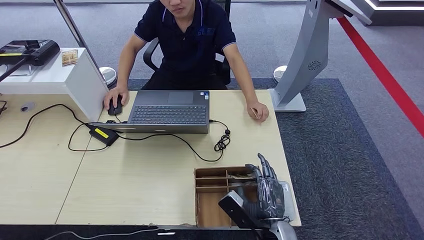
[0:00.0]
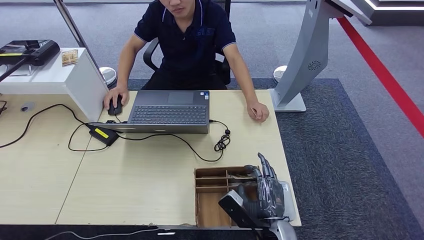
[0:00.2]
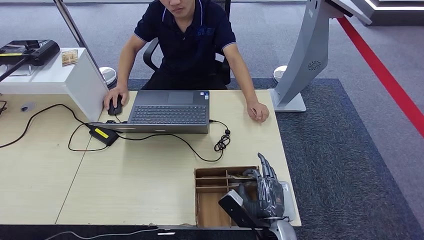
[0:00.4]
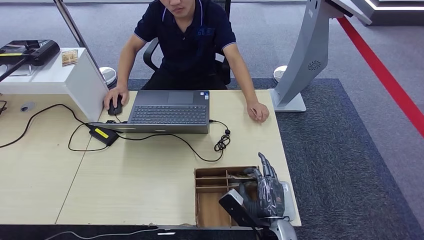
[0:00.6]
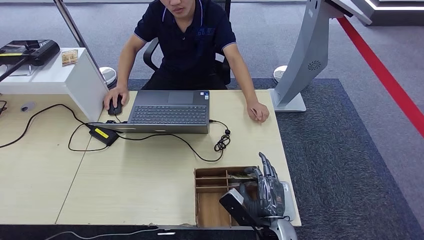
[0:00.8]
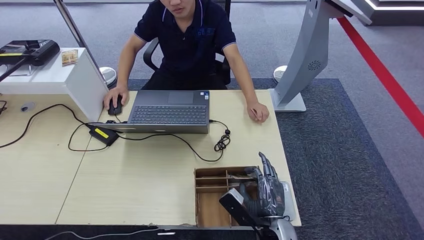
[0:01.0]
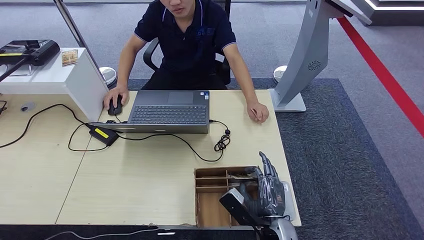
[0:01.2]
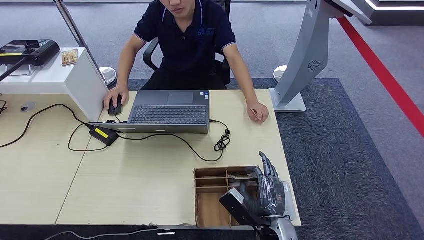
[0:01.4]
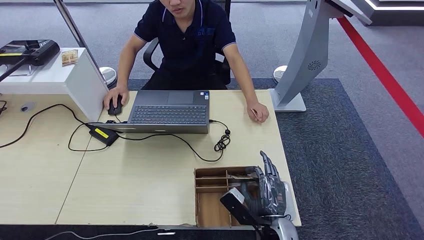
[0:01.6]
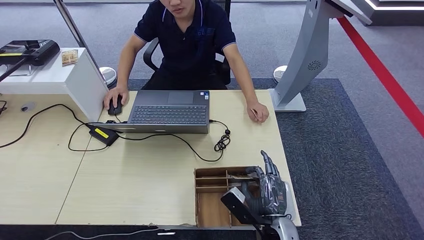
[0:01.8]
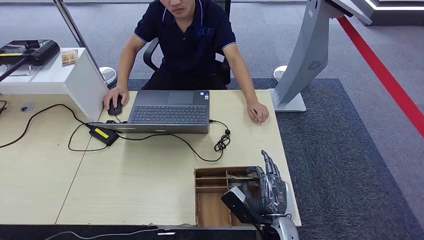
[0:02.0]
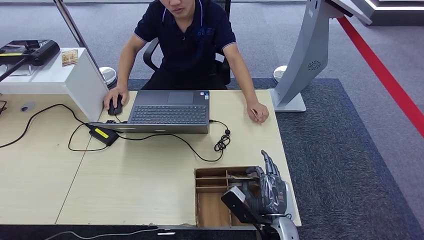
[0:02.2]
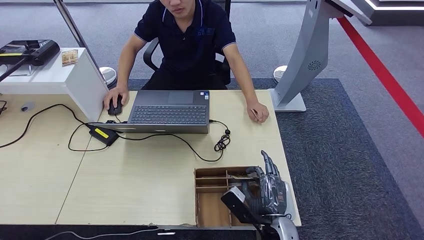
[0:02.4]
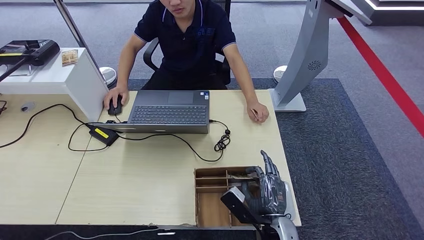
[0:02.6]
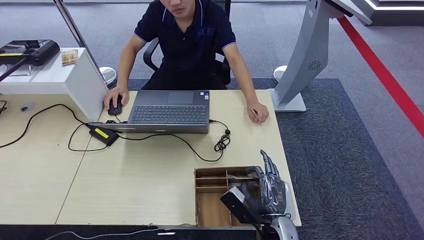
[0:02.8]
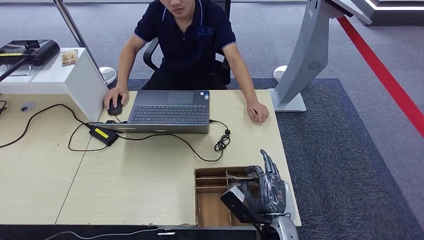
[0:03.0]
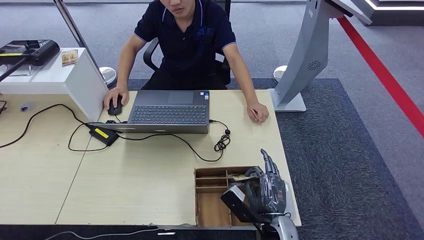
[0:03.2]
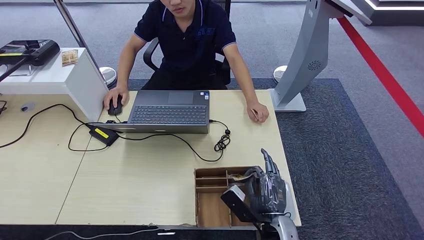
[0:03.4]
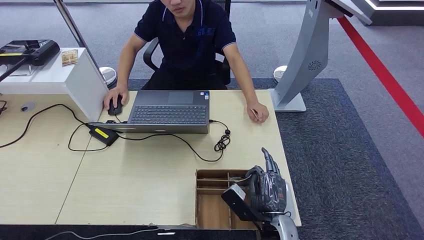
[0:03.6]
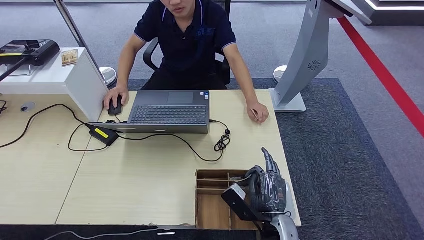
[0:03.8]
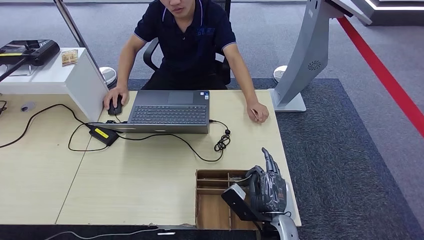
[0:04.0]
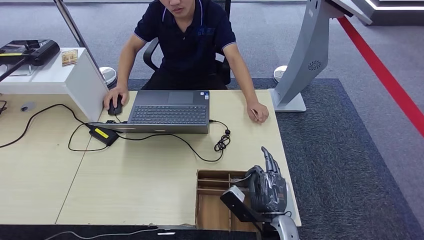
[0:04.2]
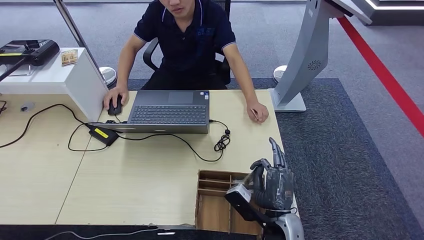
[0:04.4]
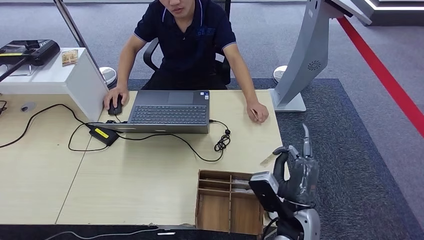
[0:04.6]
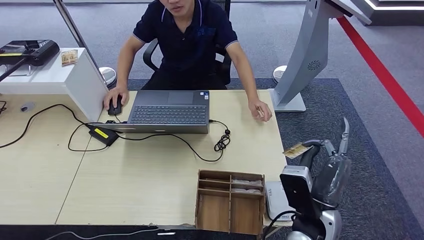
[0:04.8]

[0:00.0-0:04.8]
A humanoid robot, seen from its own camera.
Step, 0:00.0 to 0:04.8: Hand the room key to the person.
0:00.0 to 0:03.2: The two hands keep their place.
0:03.2 to 0:04.8: The right hand travels upward by about 10 cm.

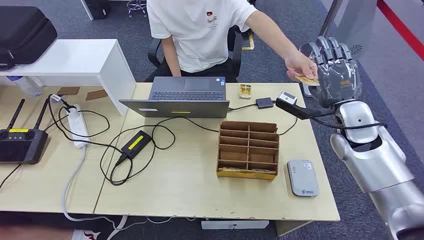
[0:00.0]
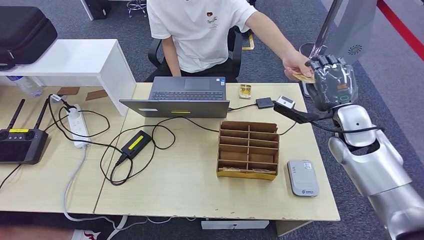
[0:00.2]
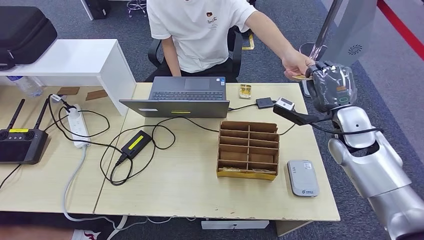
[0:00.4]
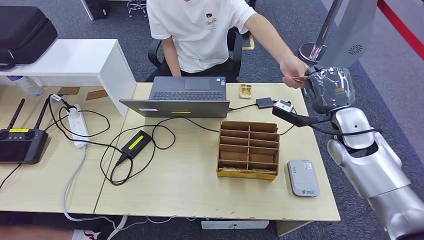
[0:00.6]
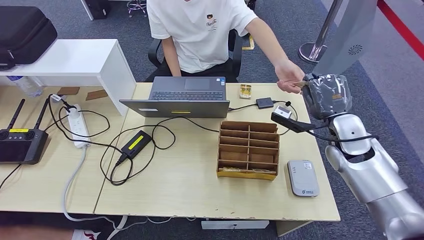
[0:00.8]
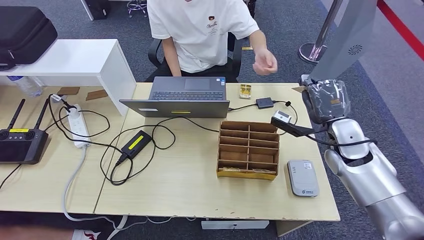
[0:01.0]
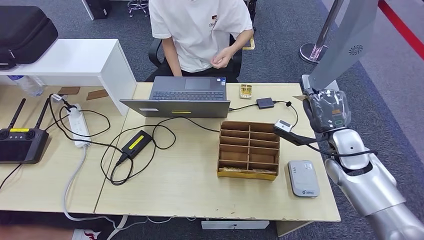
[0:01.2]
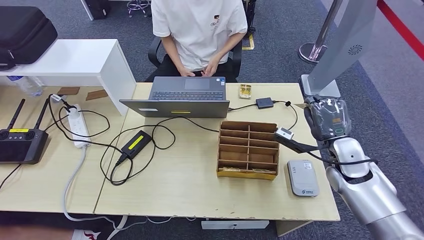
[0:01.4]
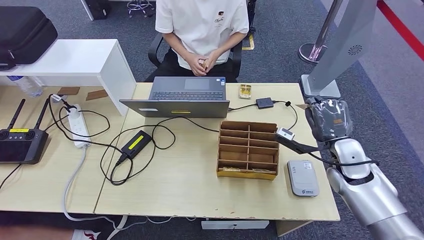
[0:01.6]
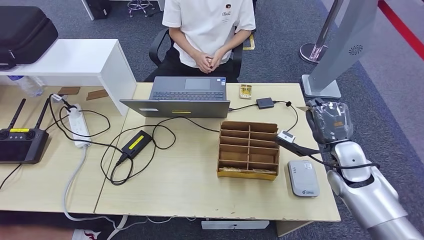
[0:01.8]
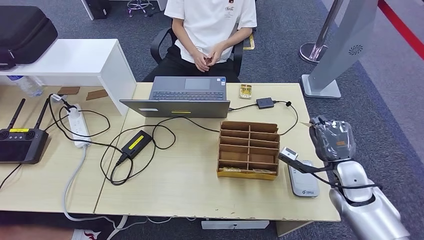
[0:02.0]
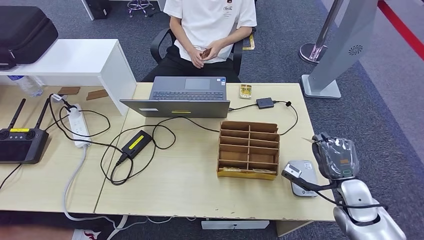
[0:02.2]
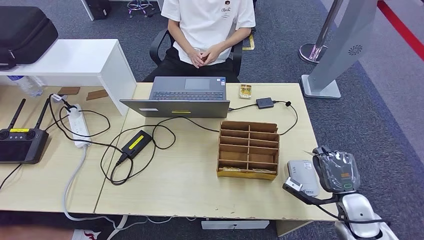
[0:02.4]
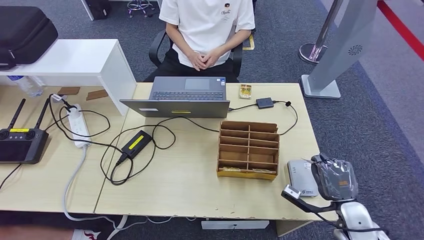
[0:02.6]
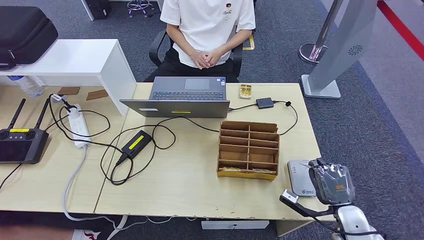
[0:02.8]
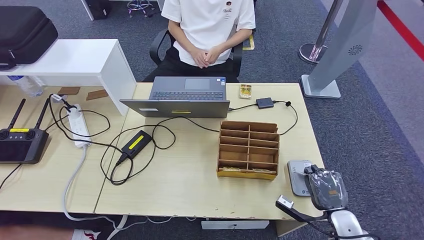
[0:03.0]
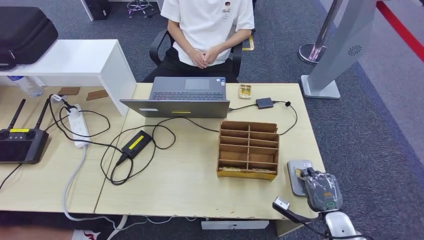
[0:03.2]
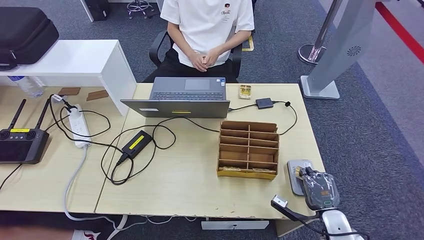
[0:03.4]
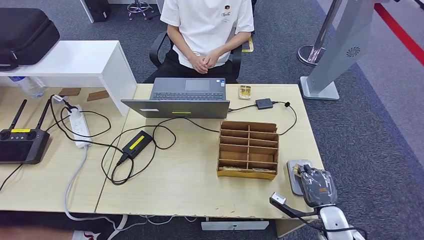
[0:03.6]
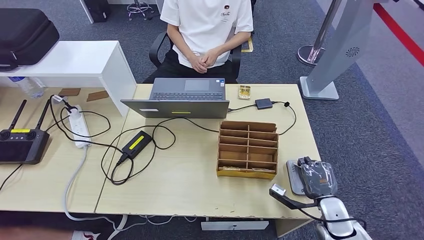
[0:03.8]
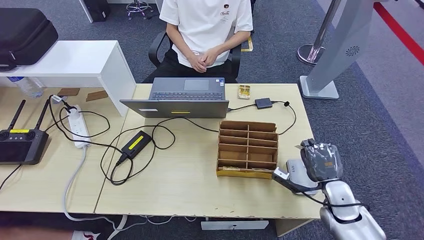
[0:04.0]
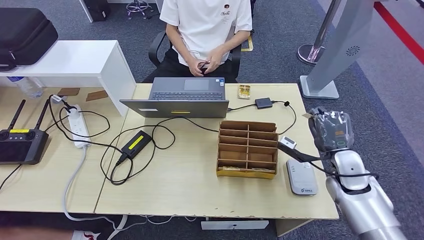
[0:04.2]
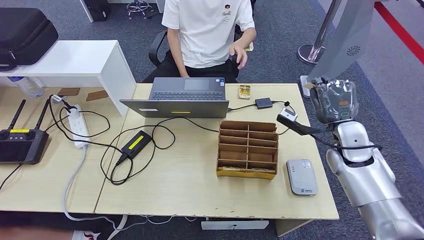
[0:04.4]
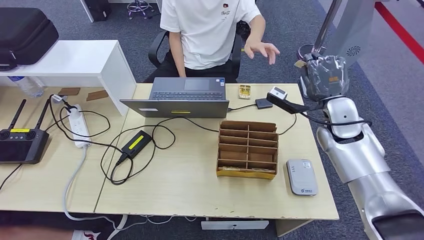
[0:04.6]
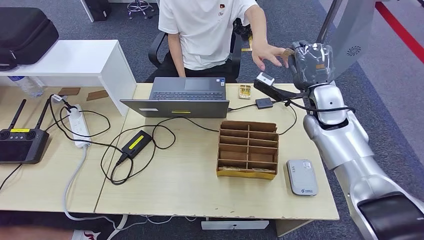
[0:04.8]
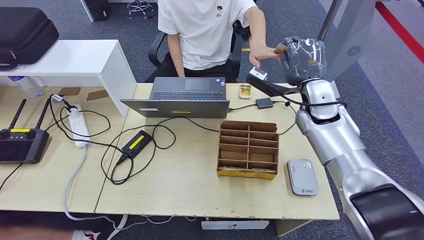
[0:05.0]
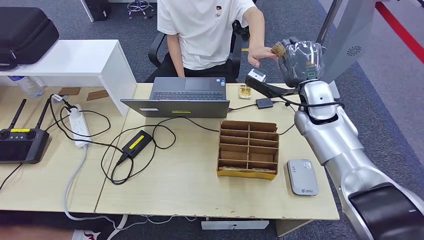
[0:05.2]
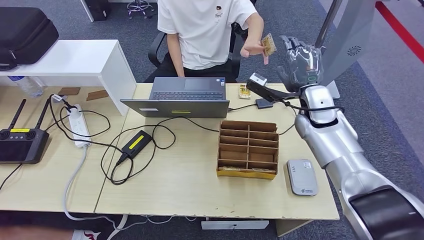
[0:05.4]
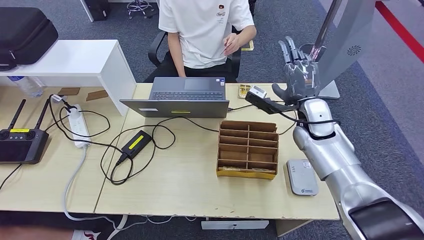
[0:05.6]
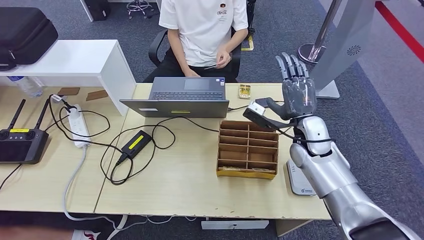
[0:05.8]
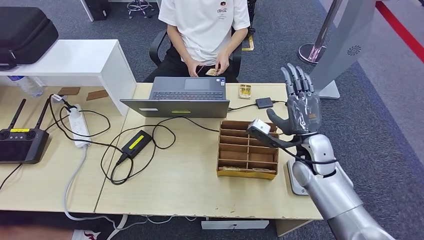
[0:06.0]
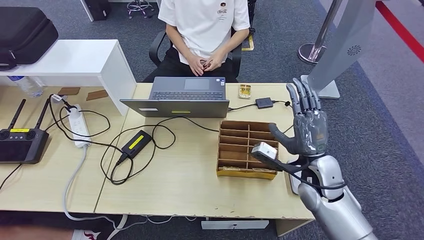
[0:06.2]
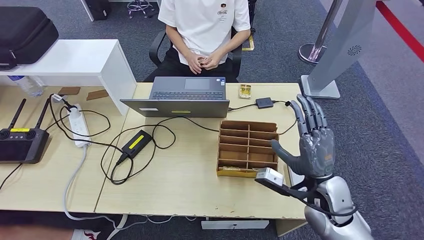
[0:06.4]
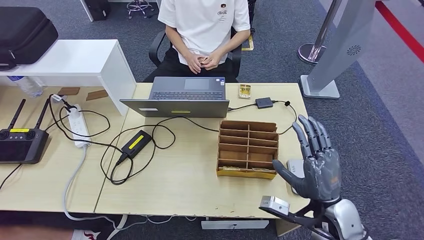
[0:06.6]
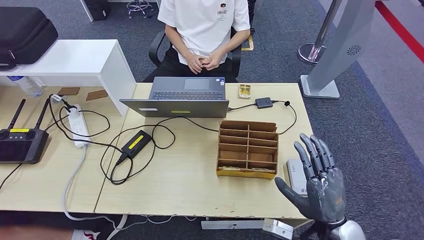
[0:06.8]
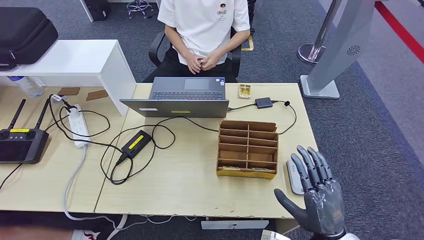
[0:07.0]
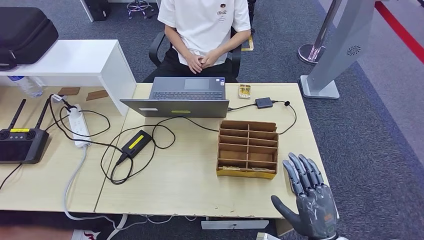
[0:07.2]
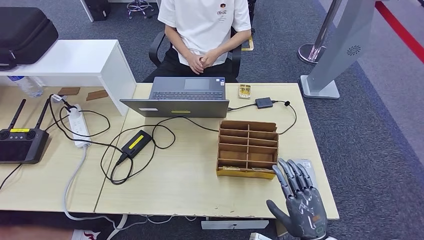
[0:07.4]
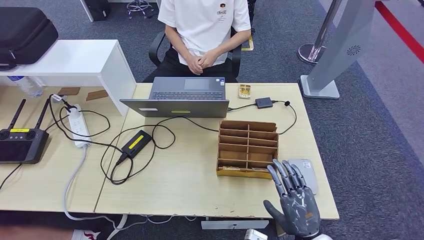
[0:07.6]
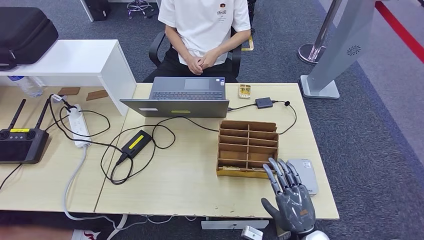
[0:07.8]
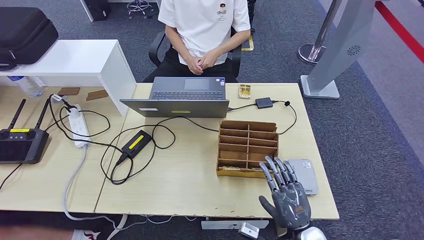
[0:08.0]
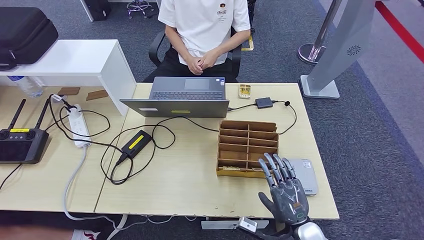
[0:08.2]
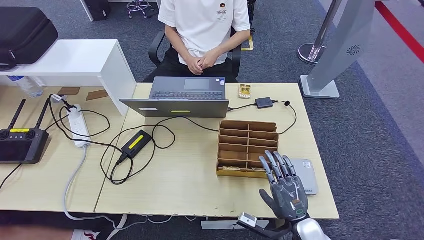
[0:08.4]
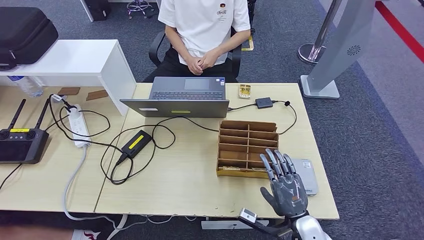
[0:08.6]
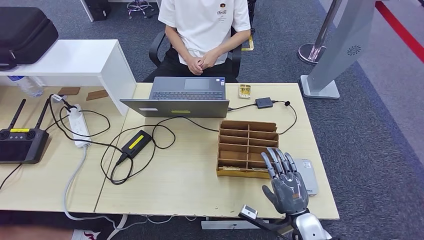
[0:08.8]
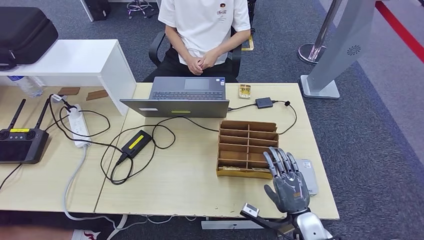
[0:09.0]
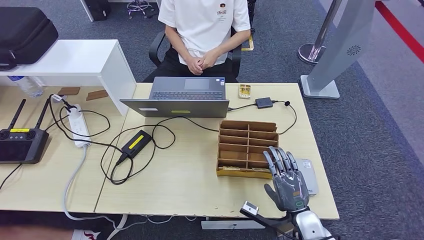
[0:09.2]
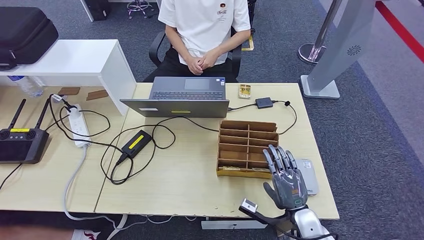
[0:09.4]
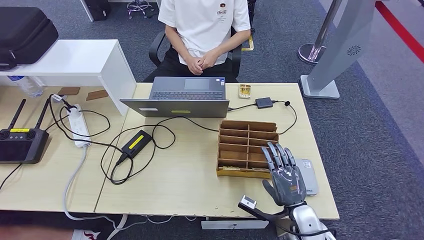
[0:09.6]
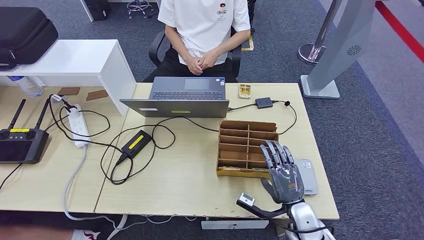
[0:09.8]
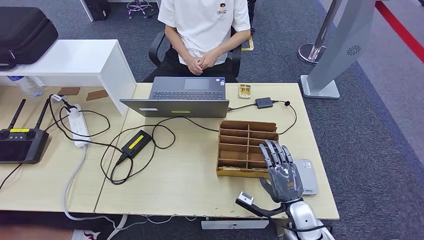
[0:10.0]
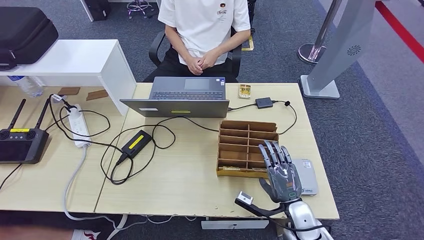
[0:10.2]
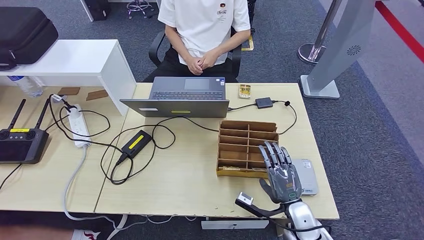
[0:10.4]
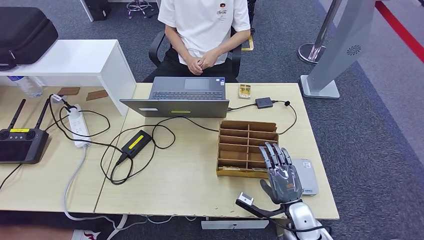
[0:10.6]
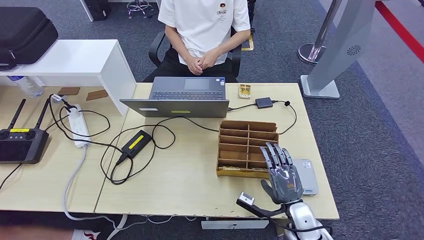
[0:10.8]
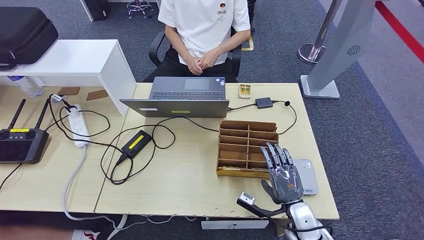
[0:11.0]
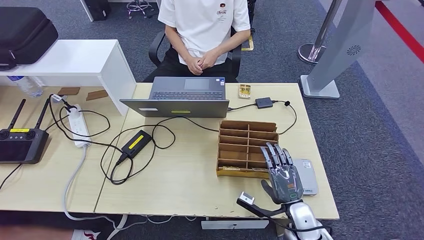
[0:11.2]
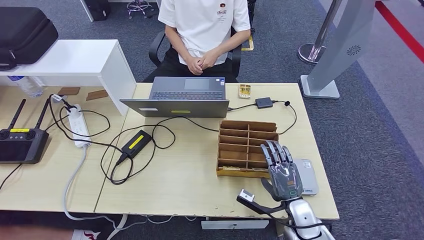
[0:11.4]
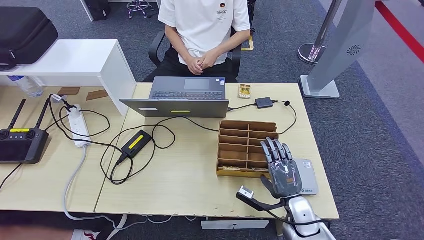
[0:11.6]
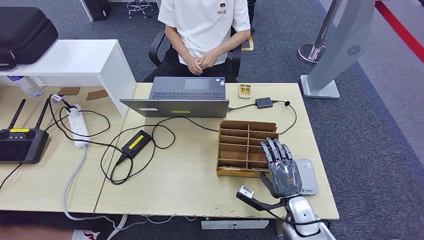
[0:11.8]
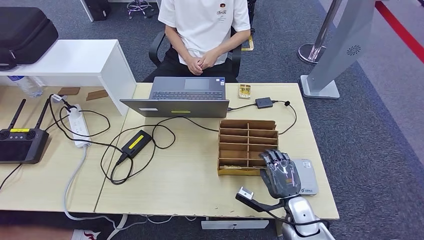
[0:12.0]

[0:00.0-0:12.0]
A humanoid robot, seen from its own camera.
Step, 0:00.0 to 0:02.4: Take the ID card from the person's hand.
Step, 0:02.8 to 0:04.0: Place the ID card on the card reader.
Step, 0:04.2 to 0:07.4: Hand the ID card to the person.
0:01.6 to 0:03.0: The right hand is displaced backward and downward by some 20 cm.
0:03.0 to 0:04.4: The right hand shifts roughly 25 cm forward and upward.
0:04.4 to 0:06.0: The right hand is displaced to the left by some 10 cm, and goes upward and returns, approximately 5 cm each way.
0:06.0 to 0:07.6: The right hand travels backward and downward by roughly 25 cm.
0:07.6 to 0:09.0: The right hand moves forward, some 5 cm.
0:09.0 to 0:10.4: The hands move only a little.
0:10.4 to 0:12.0: Neither hand changes place.
